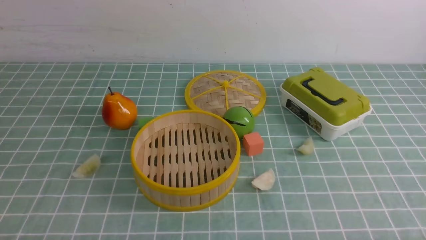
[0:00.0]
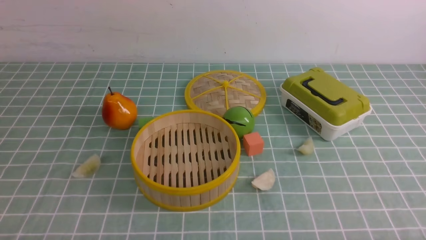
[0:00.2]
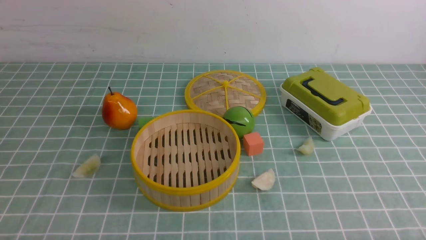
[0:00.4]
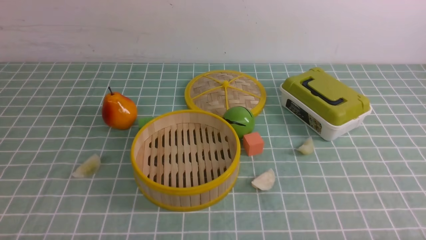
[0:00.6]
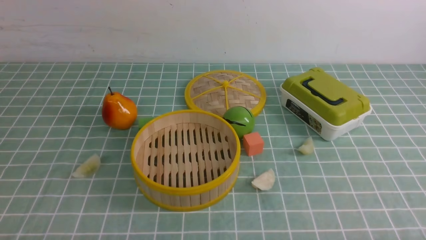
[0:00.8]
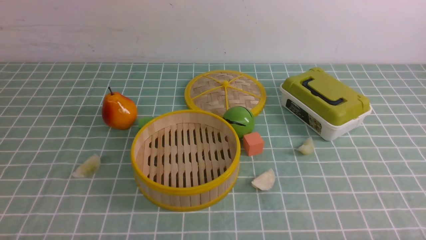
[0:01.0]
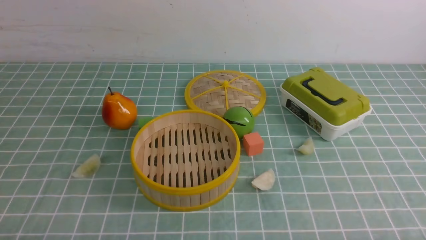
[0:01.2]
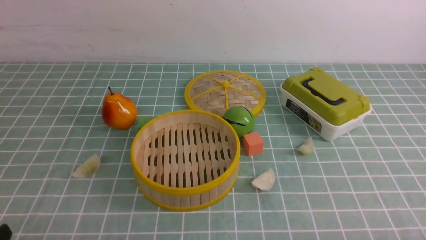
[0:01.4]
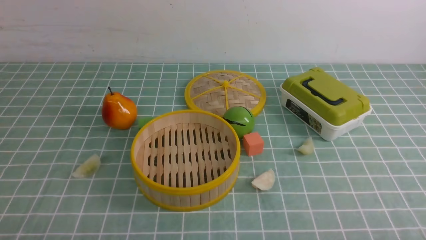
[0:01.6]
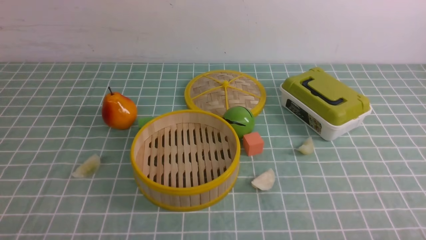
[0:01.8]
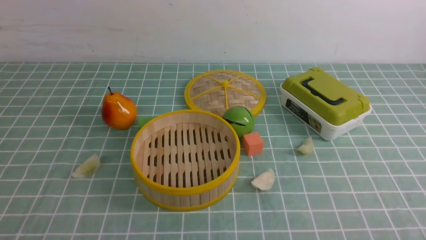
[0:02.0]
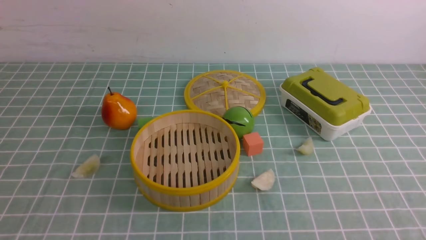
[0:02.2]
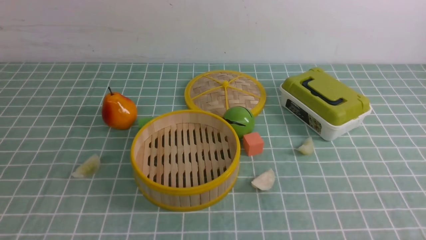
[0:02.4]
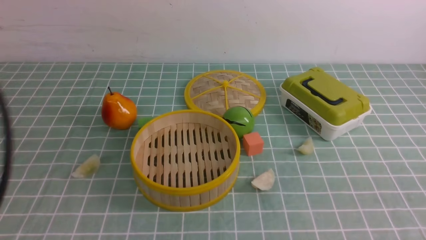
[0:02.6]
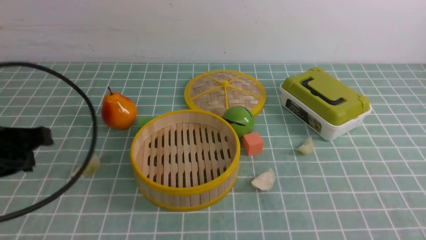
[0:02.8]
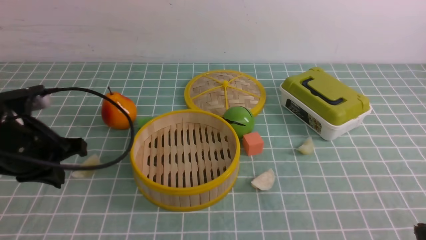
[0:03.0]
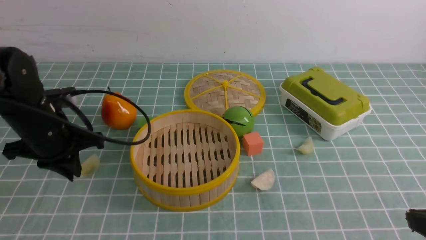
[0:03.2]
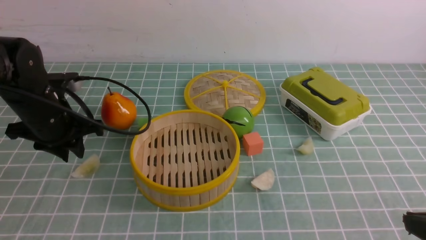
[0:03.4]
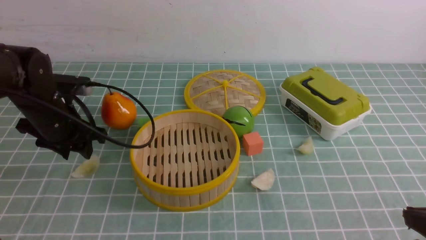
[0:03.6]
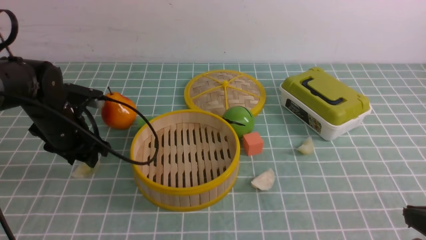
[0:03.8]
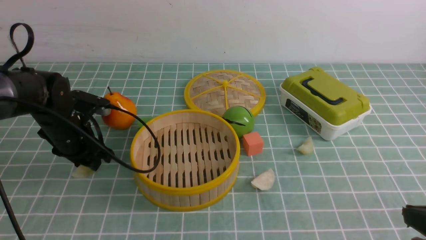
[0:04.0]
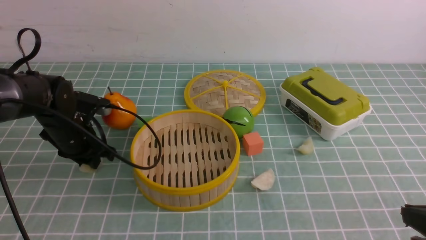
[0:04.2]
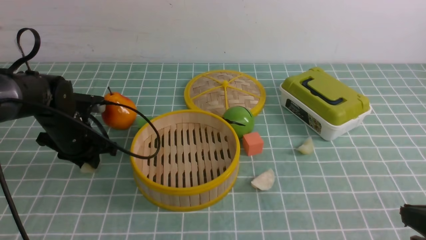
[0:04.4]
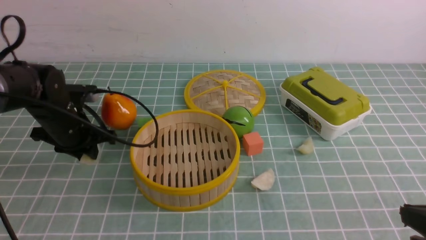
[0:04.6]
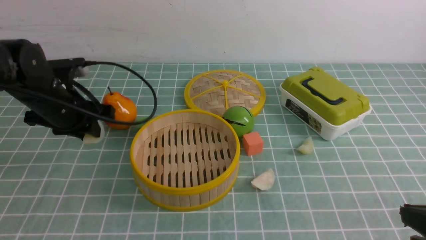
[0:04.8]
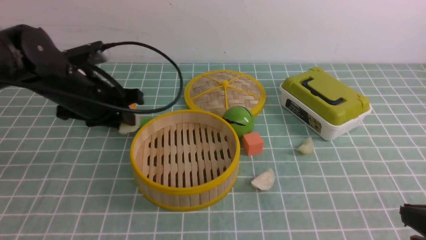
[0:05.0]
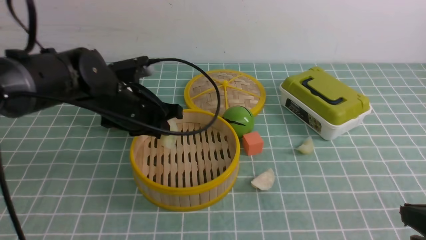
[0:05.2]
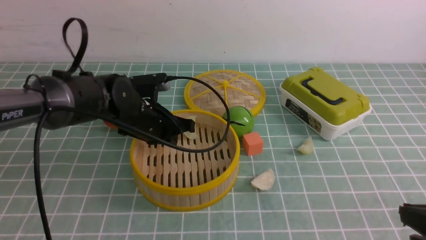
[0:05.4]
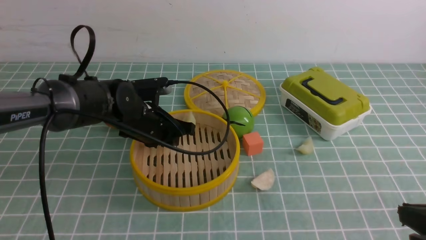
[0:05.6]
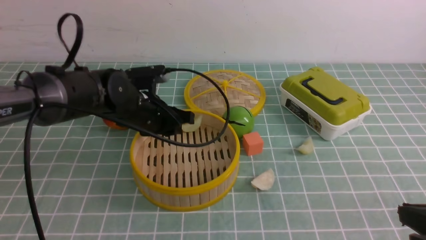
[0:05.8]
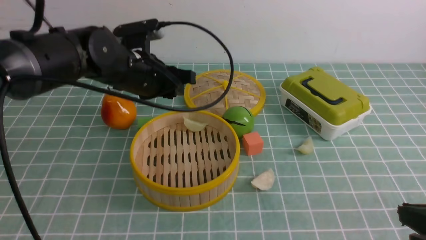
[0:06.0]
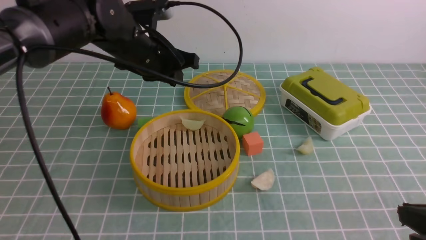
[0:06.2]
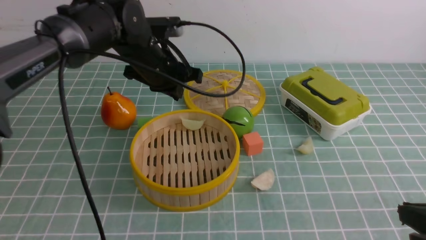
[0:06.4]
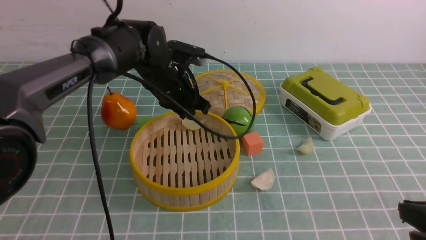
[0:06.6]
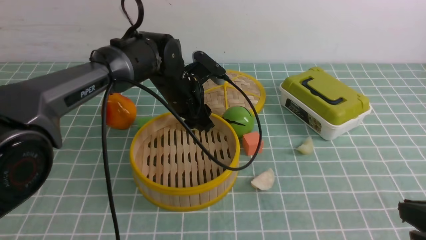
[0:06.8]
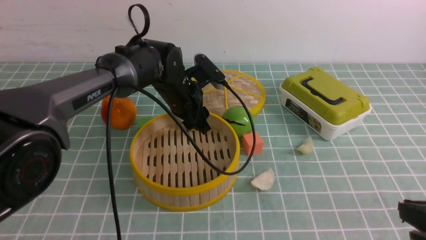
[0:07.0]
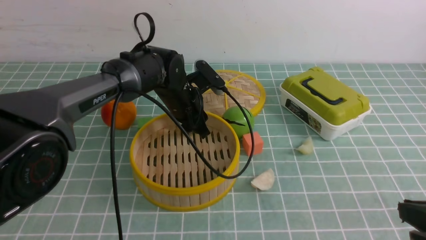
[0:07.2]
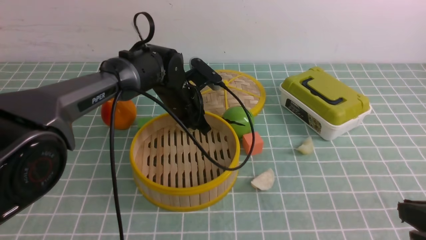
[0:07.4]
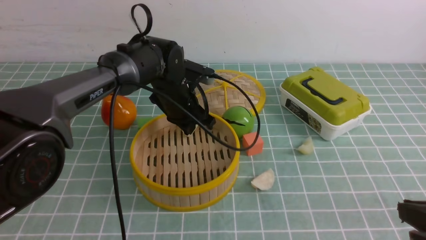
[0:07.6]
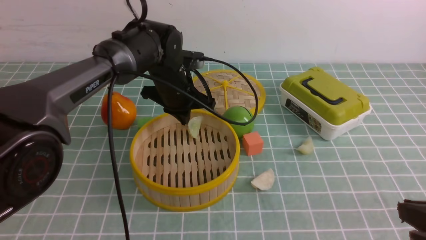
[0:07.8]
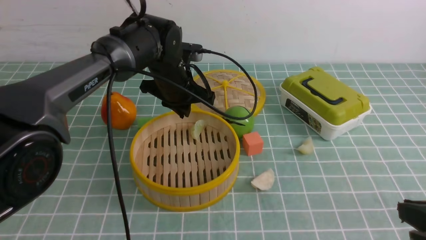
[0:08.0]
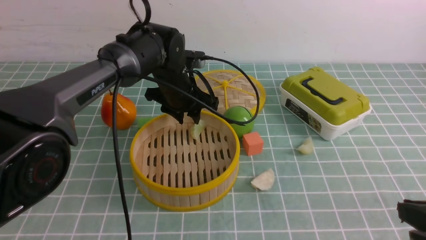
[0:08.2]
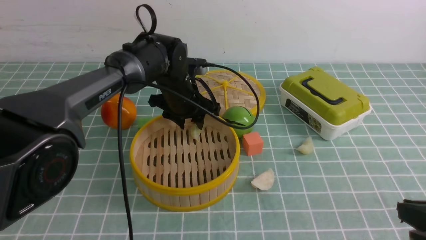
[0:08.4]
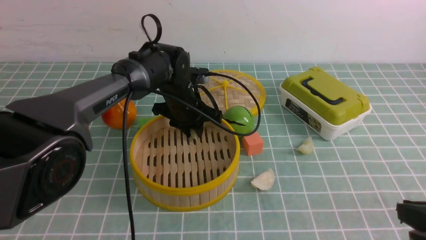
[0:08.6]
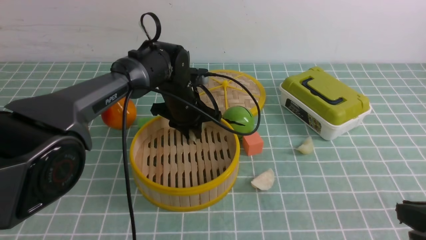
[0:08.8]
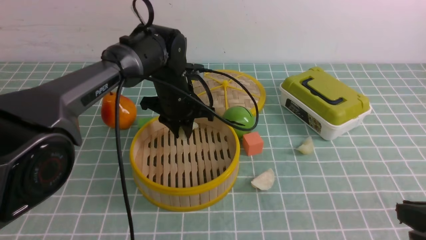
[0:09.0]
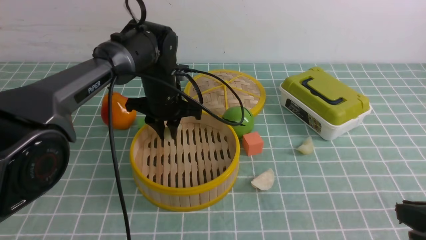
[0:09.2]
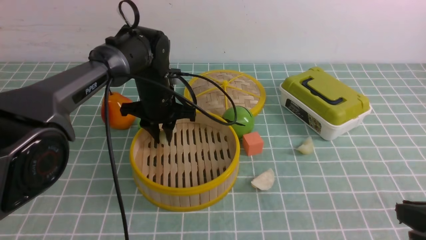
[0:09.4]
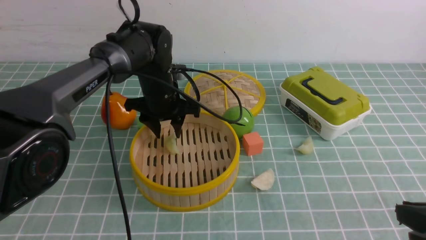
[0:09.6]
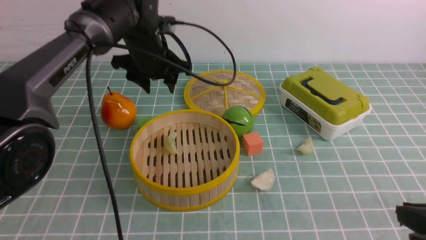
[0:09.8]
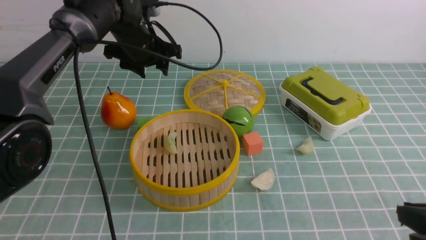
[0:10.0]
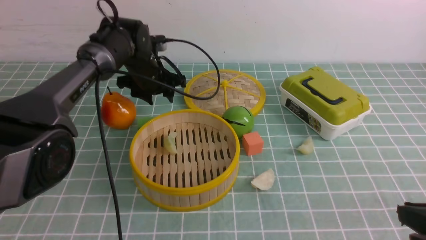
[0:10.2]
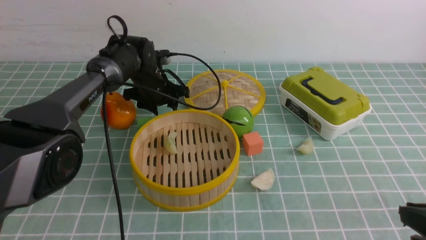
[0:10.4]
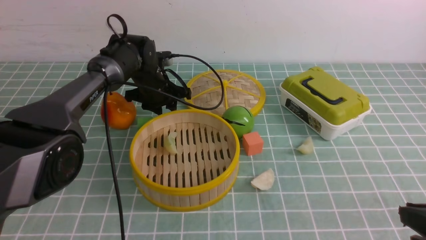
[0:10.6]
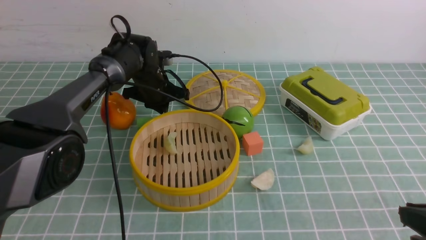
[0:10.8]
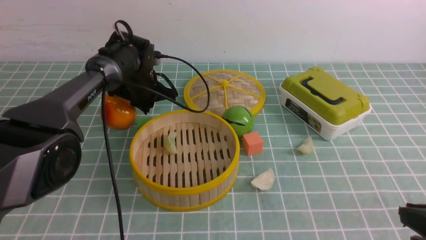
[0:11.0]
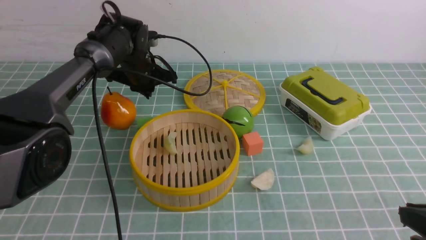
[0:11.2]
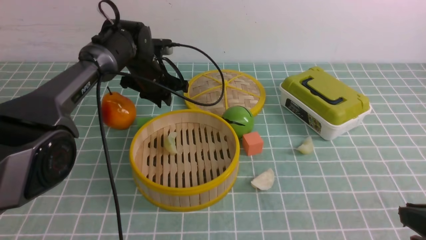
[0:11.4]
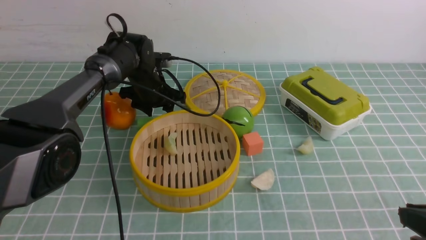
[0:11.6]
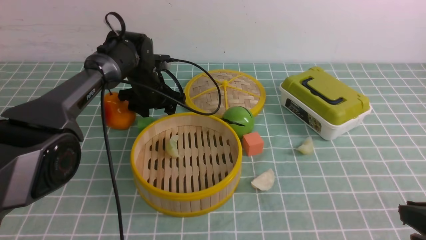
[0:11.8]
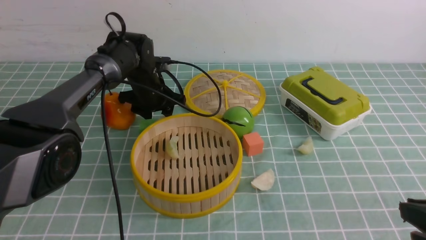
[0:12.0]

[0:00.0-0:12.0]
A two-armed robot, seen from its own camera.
Task of the whole recording: put the dumplings into the steamer on the table with the blue tablecloth.
Step, 0:00.0 to 0:04.2: use the left arm to grab a dumpling.
Step, 0:04.4 to 0:05.6: use the left arm to put the dumpling into the steamer.
0:01.6 to 0:03.0: The left gripper shifts about 20 cm forward, and closes.
0:03.0 to 0:04.4: The left gripper moves forward and downward, roughly 15 cm, and opens its fingers.
0:04.4 to 0:06.0: The left gripper is displaced to the right and upward by about 15 cm.
0:06.0 to 0:07.6: The left gripper heads downward and forward, covering roughly 10 cm.
0:09.0 to 0:10.4: The left gripper travels forward and to the left by about 10 cm, moves about 5 cm upward and comes back, and opens up.
0:10.4 to 0:12.0: The left gripper closes, then reopens.

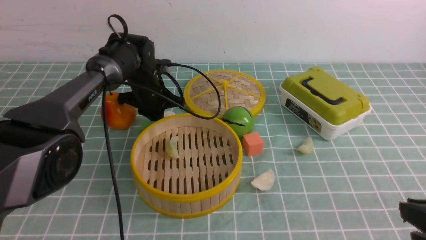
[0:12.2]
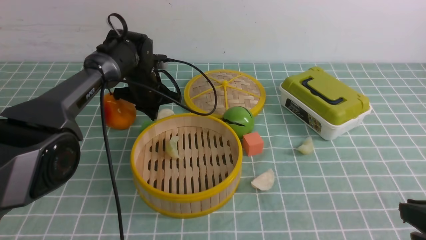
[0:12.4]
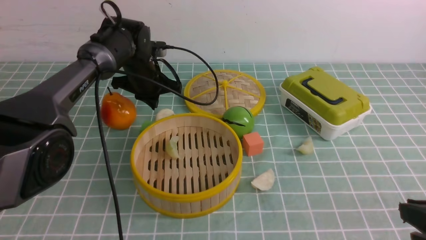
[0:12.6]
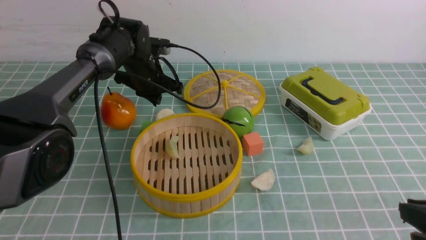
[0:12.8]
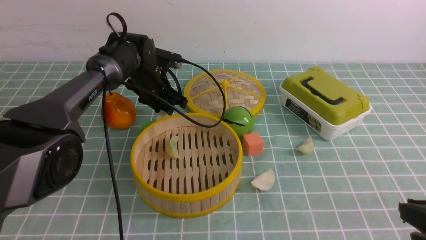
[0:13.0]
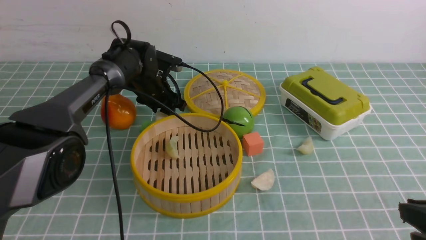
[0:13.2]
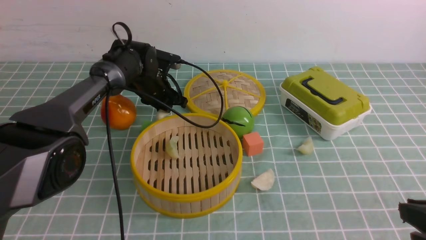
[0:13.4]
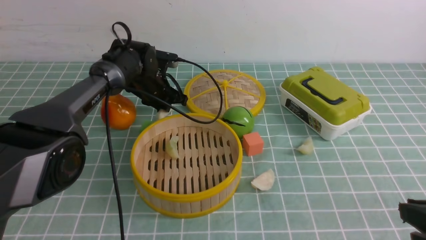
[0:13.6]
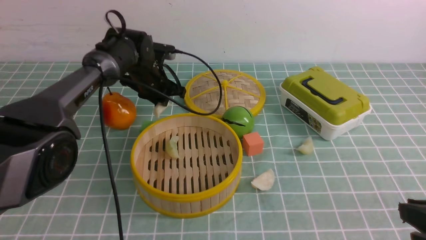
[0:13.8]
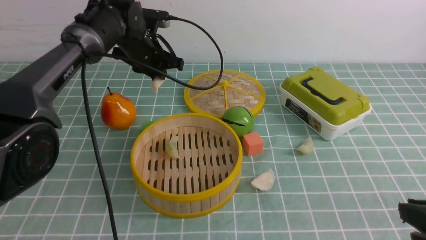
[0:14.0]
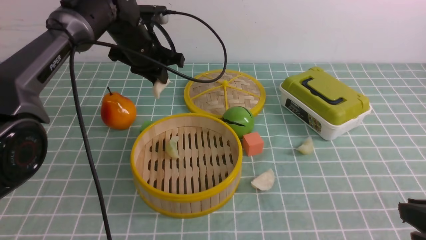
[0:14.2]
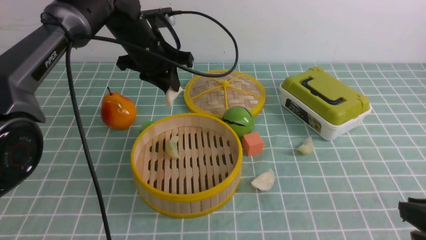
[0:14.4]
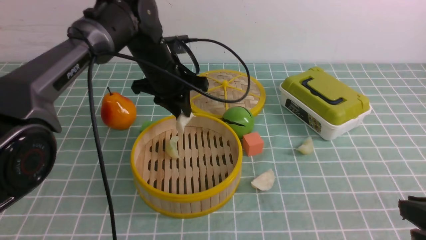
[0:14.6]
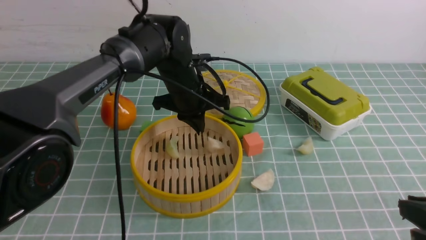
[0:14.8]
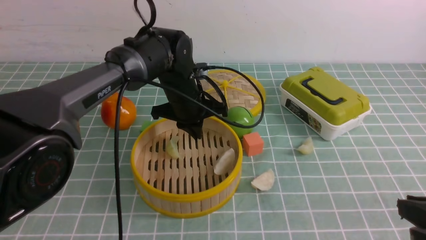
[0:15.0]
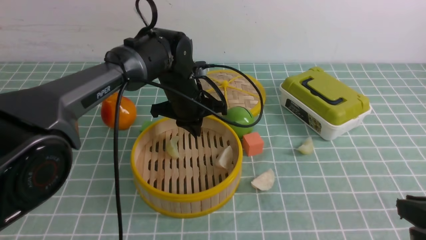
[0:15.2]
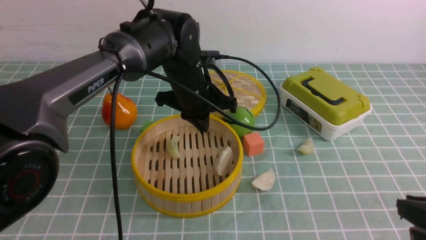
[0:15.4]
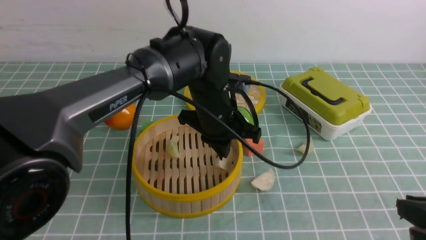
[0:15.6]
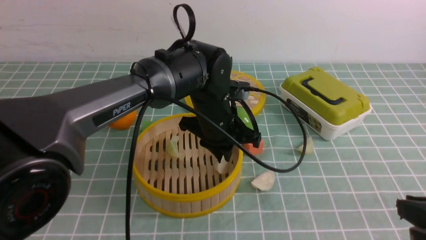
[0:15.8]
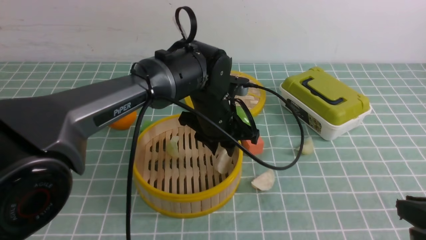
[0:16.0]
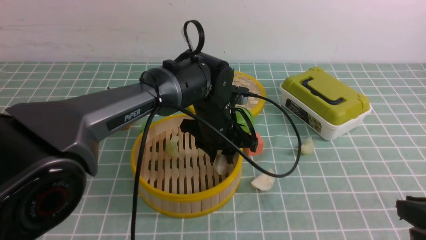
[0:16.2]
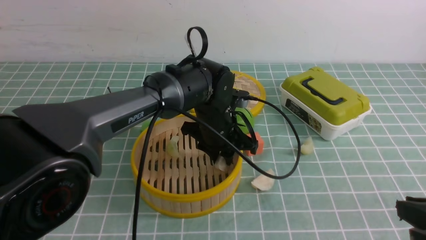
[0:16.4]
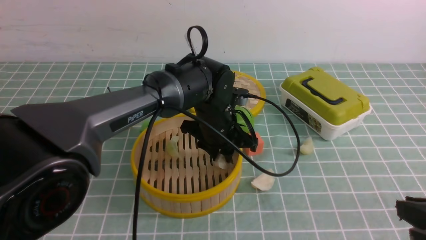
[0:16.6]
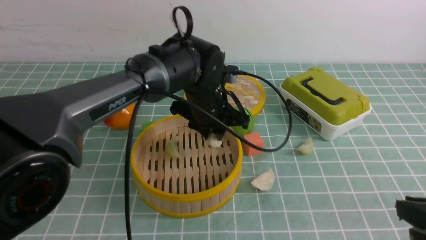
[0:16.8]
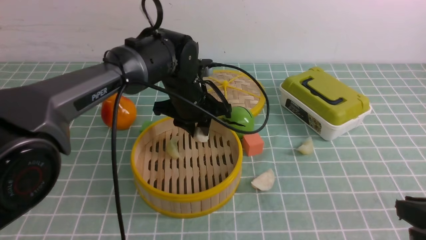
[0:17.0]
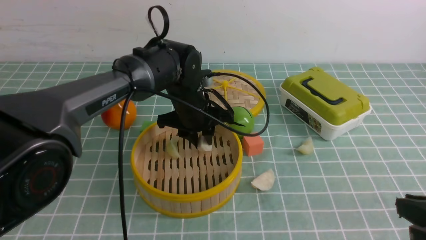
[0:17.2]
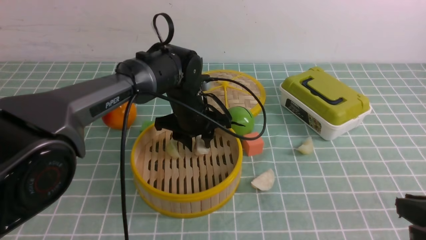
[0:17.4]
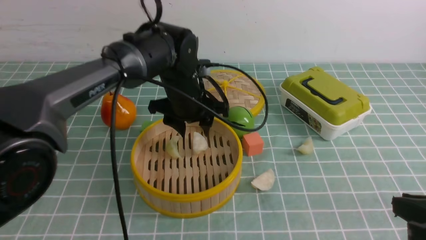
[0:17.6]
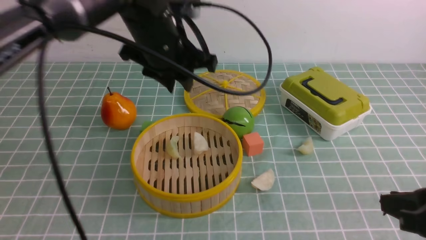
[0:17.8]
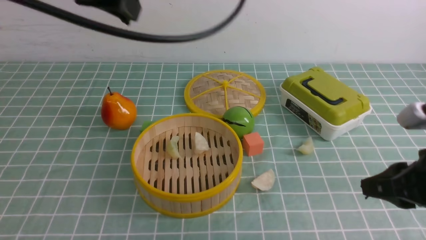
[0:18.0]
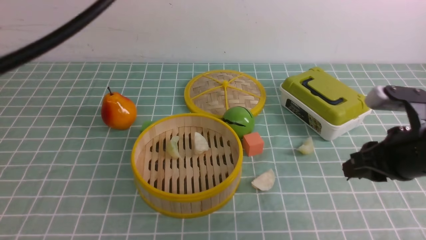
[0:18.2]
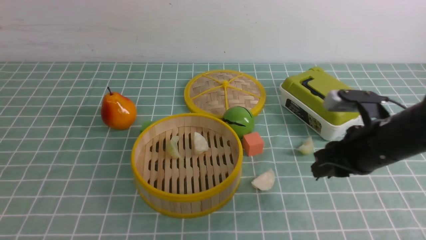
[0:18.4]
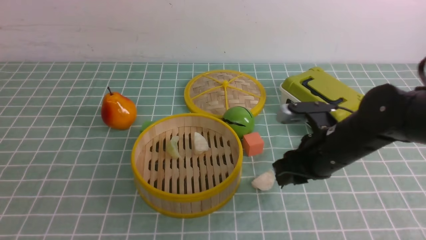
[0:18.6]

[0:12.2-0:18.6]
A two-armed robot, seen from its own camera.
Task of the whole recording: put the dumplings into the steamer on the table with the blue tablecloth.
Step, 0:13.4 to 0:17.6: use the left arm to put the dumpling into the steamer.
0:12.2 to 0:13.8: The left gripper opens and closes again.
0:13.8 to 0:15.4: The left gripper travels backward and to the right by some 15 cm.
0:15.4 to 0:17.0: The left gripper opens its fingers.
0:17.0 to 0:18.6: The right gripper heads forward and to the left, covering approximately 20 cm, and opens up. The left gripper heads backward, to the left and upward, covering roughly 40 cm, and closes up.
